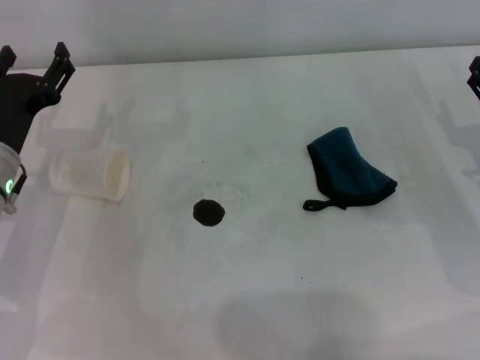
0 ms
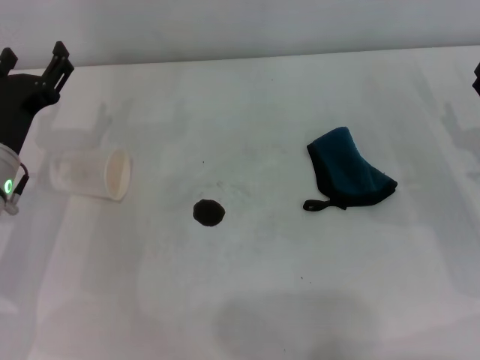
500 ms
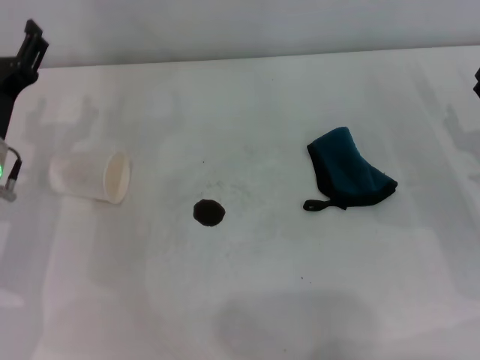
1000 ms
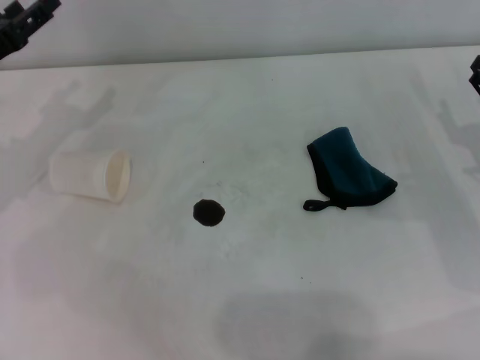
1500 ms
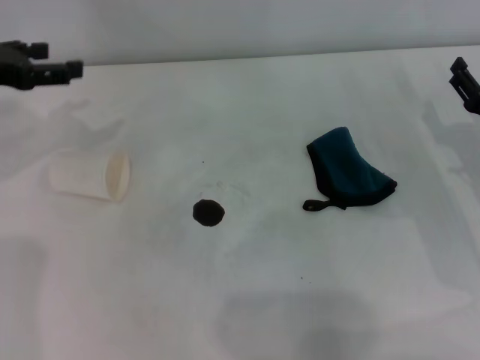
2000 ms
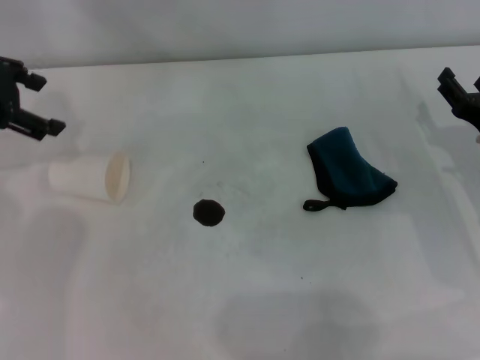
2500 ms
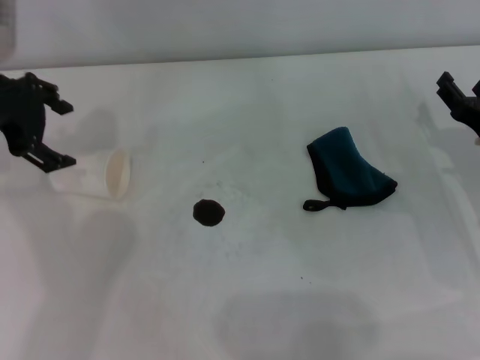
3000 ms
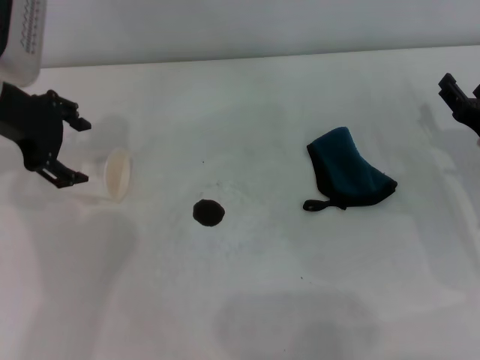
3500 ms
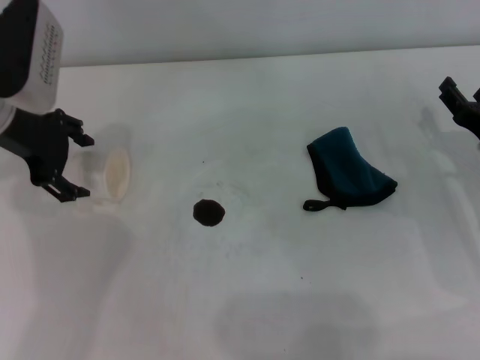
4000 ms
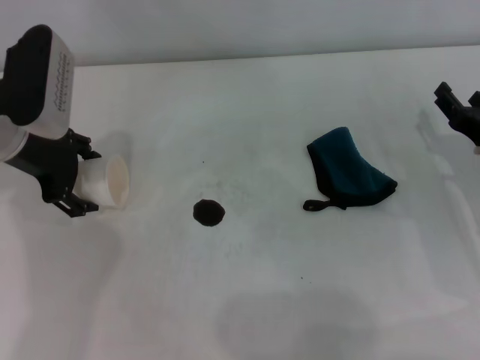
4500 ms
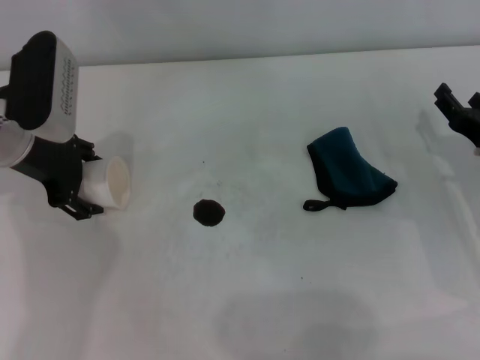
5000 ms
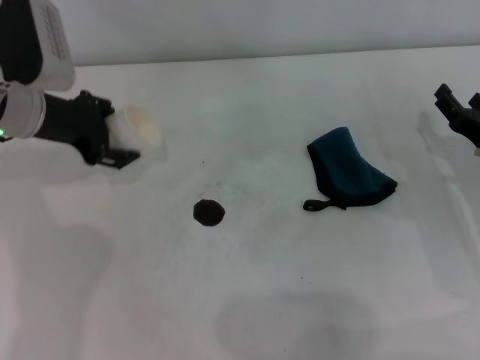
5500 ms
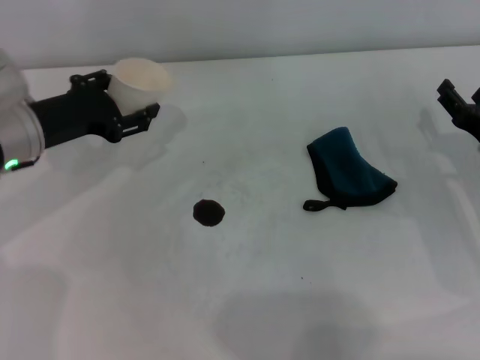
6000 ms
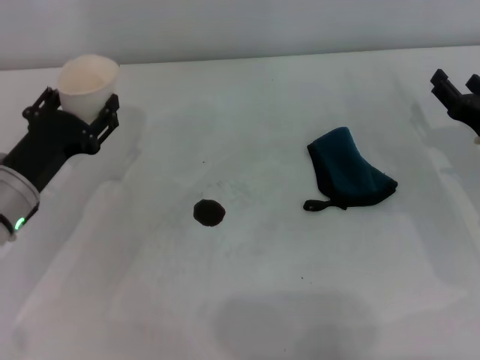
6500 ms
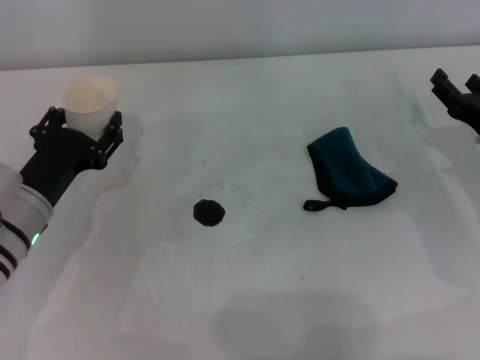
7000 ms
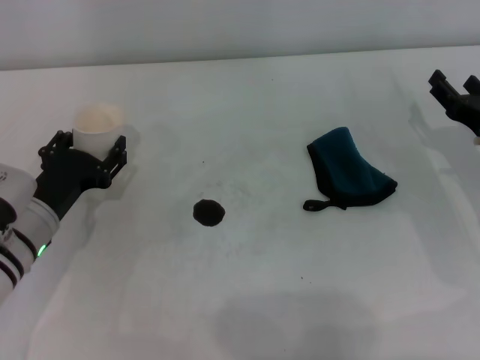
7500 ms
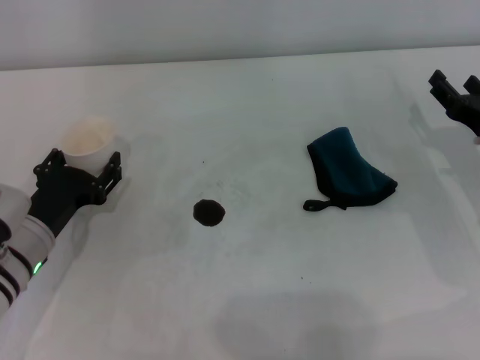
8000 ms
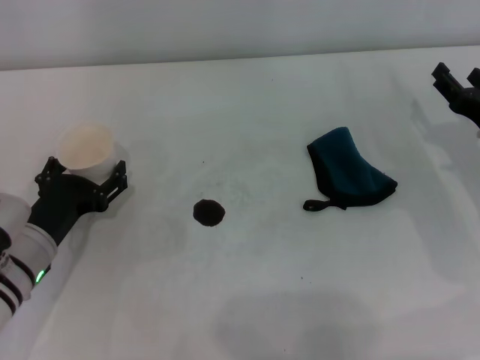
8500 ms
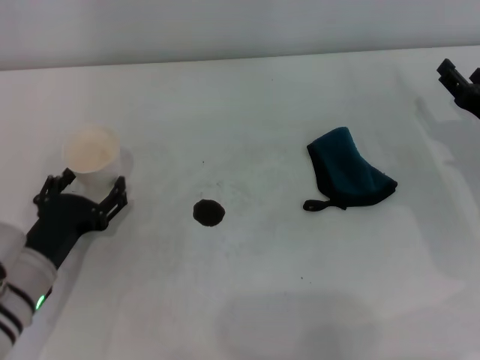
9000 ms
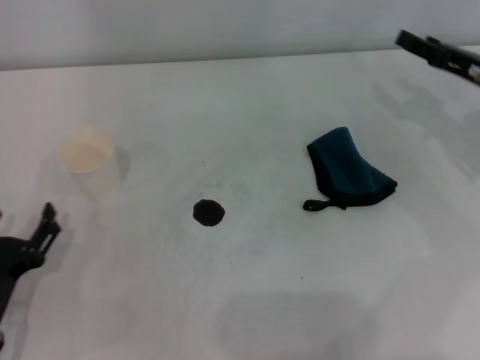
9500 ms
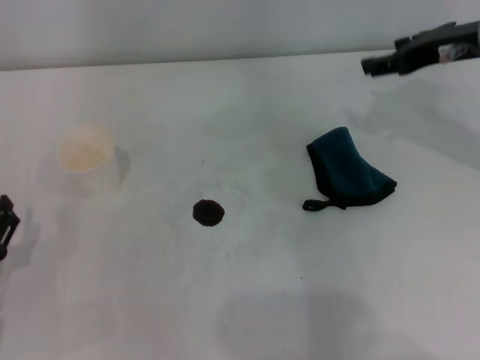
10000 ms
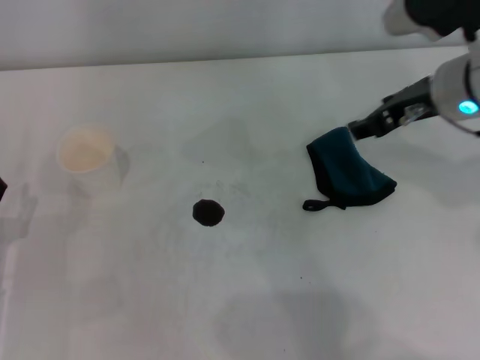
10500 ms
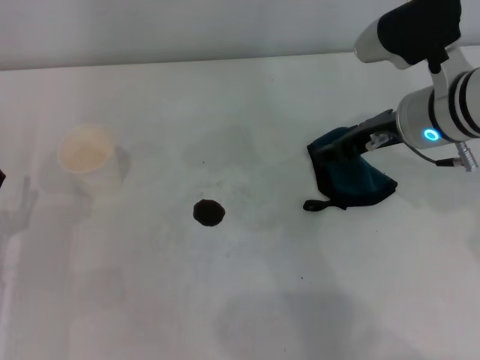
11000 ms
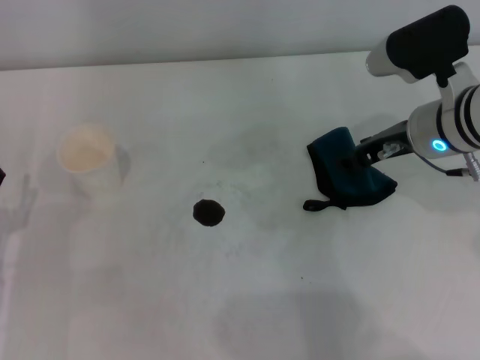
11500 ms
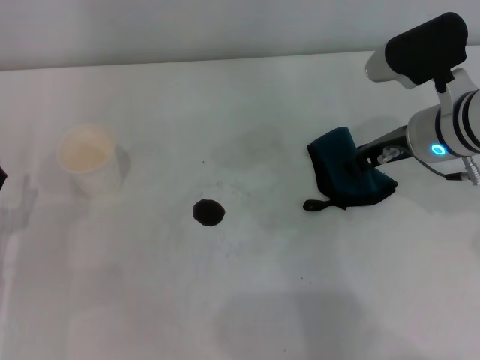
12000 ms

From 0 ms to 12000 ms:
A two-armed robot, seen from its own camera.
Step, from 0 ms to 4000 ms: Grasp the paper cup with the left gripper.
Step, from 4500 ms to 8500 ms: Stand the paper cup upright with the left gripper.
From 0 ms to 2000 ms: The left gripper is displaced upward, to the left and forward by approximately 15 cm.
From 2000 ms to 4000 ms: The left gripper shifts about 10 cm to the right.
From 4000 ms to 6000 ms: The left gripper goes approximately 5 cm downward, and closes up.
From 6000 ms to 8000 ms: The left gripper travels backward and downward by approximately 15 cm.
From 8000 ms to 10000 ms: The right gripper shifts about 20 cm upward and forward; the left gripper goes approximately 10 cm backward and to the left, and opens its fingers.
From 10000 ms to 12000 ms: The right gripper shifts some 10 cm downward and to the left.

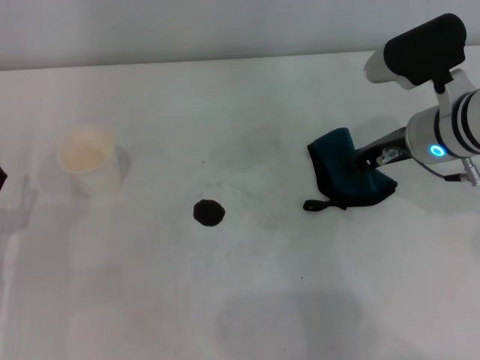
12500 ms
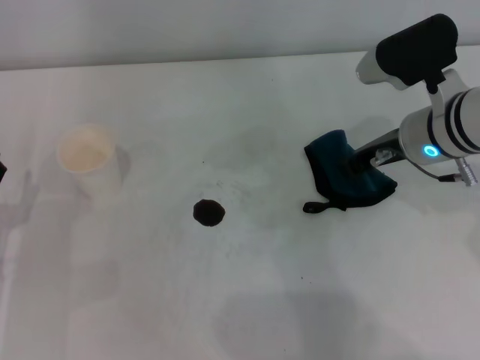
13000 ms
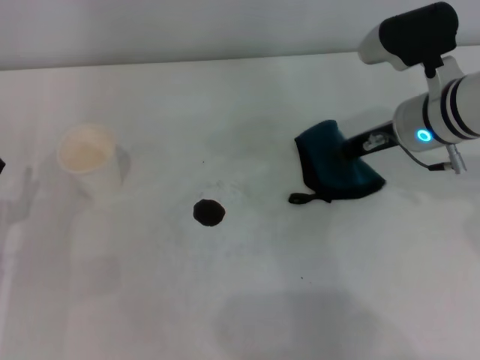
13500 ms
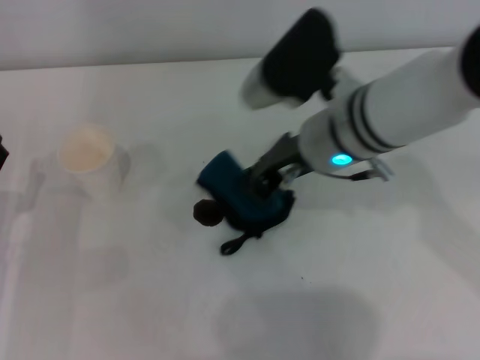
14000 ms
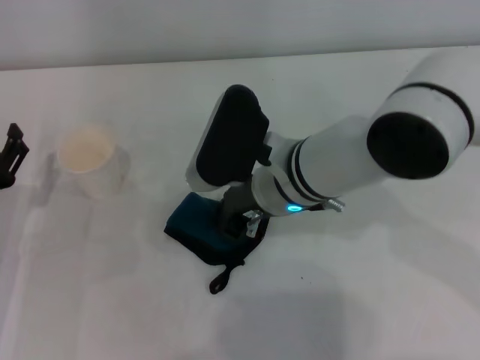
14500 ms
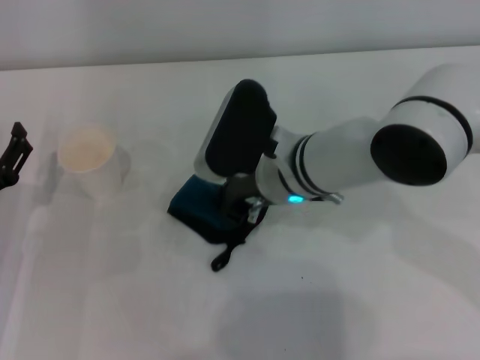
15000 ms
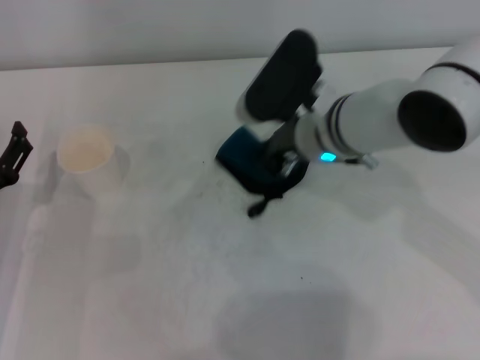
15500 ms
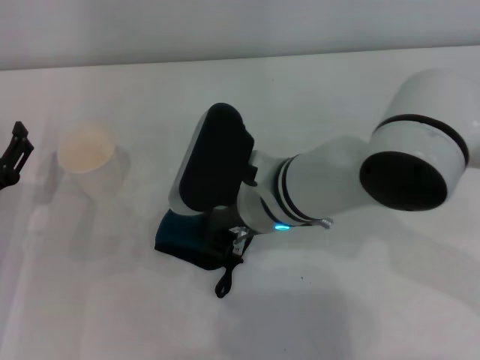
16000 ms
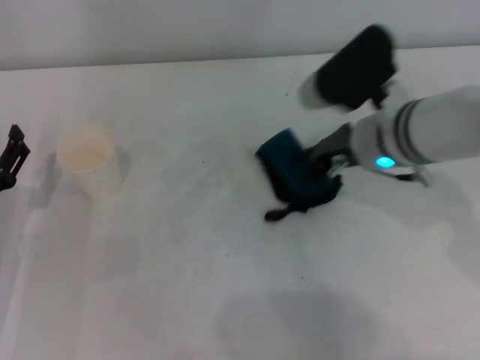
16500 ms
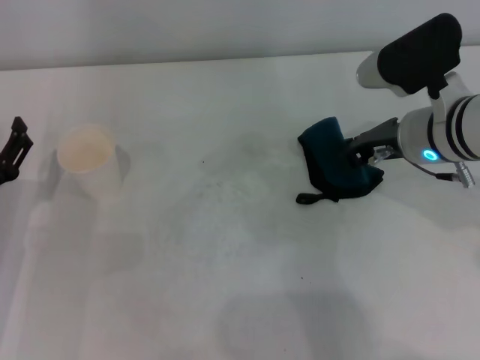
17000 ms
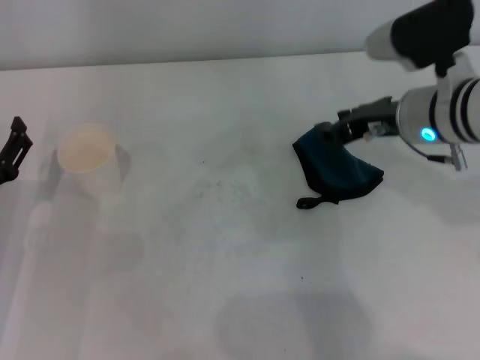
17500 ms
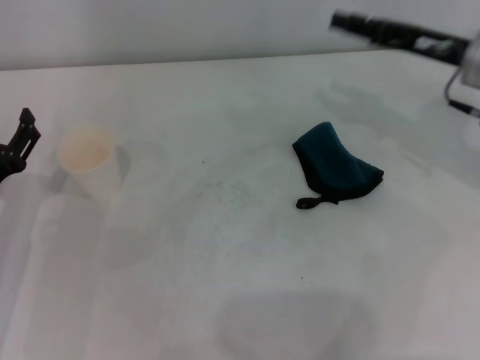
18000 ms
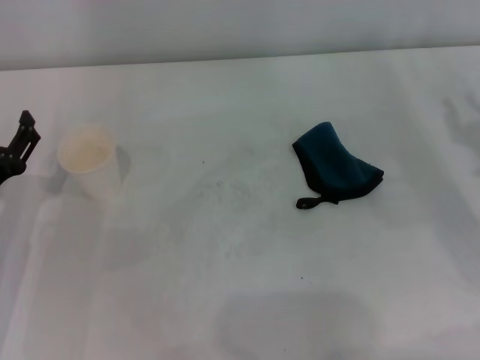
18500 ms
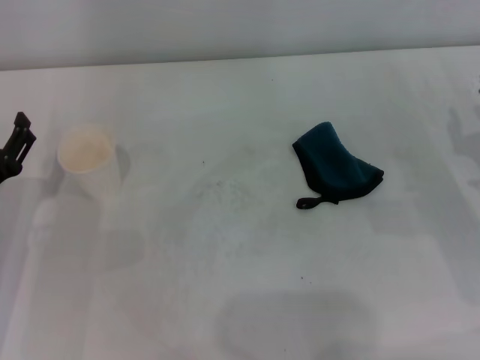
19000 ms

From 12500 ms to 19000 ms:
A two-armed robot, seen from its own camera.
Step, from 13500 ms to 16000 ms: Wipe the stains off the table with the right gripper.
Step, from 16500 ms to 17000 ms: Place the rag on the table with the right gripper.
From 12500 ms to 14500 ms: The right gripper heads to the left, covering roughly 15 cm.
From 14500 ms to 17000 ms: The right gripper swings left and right, roughly 15 cm each way, with 2 reversals.
From 17000 ms to 19000 ms: The right gripper moves to the right, downward and backward, roughly 15 cm, and opens up.

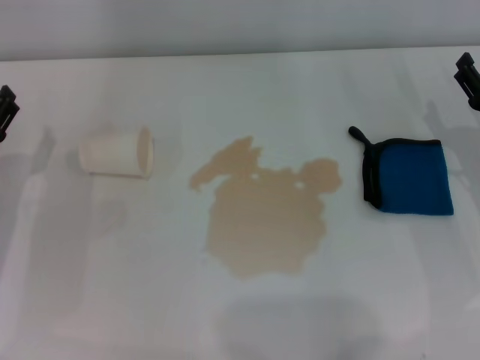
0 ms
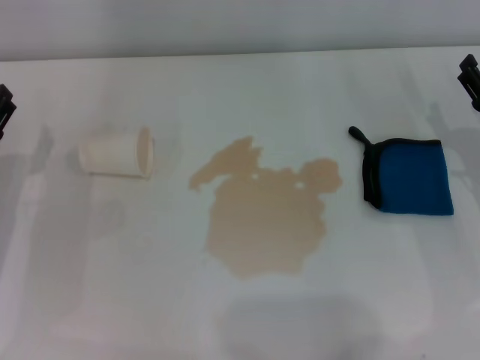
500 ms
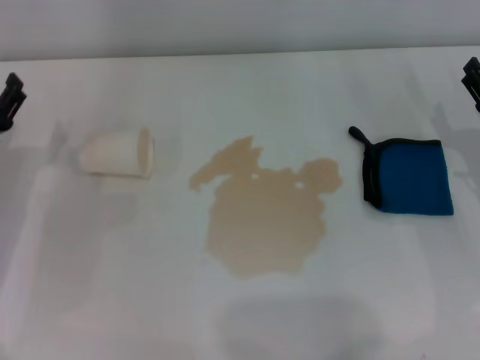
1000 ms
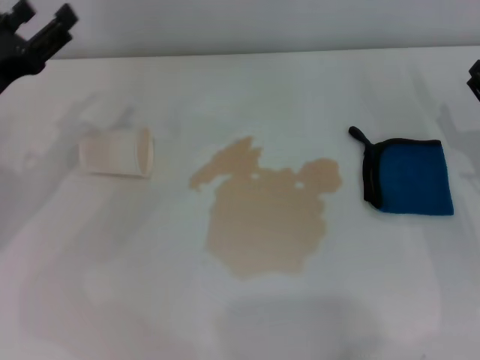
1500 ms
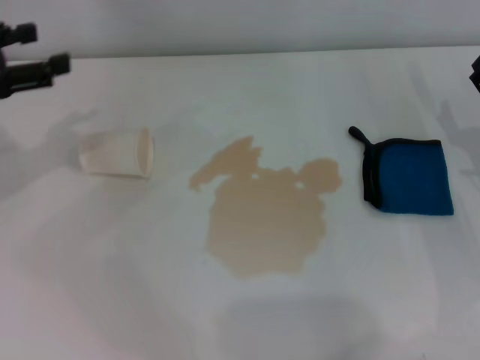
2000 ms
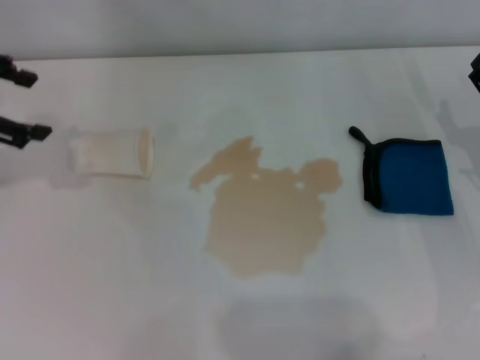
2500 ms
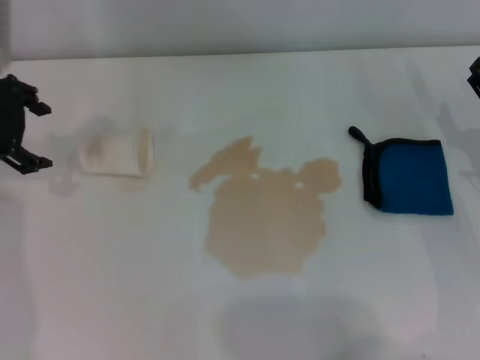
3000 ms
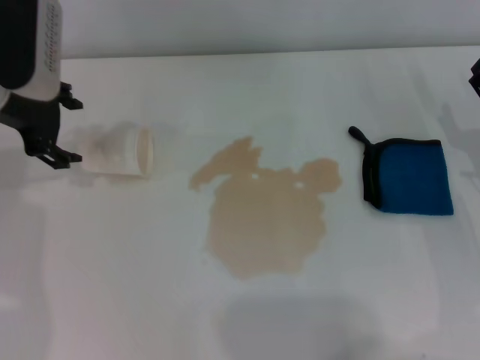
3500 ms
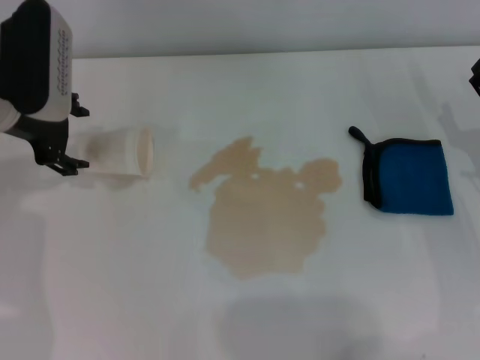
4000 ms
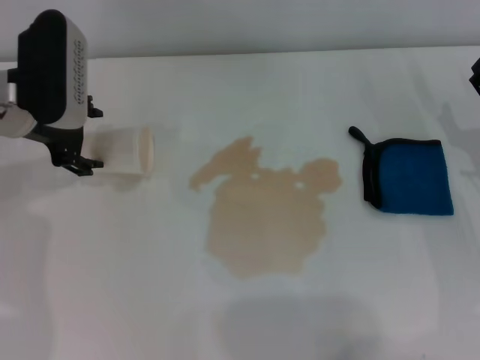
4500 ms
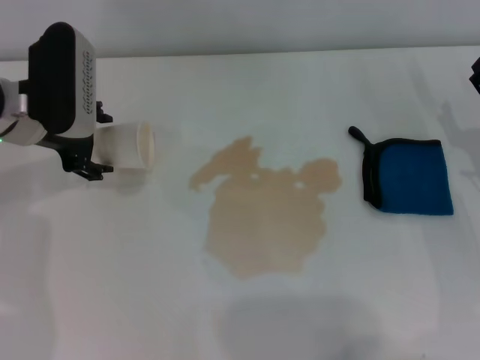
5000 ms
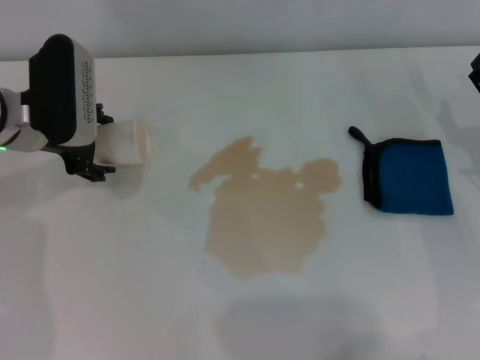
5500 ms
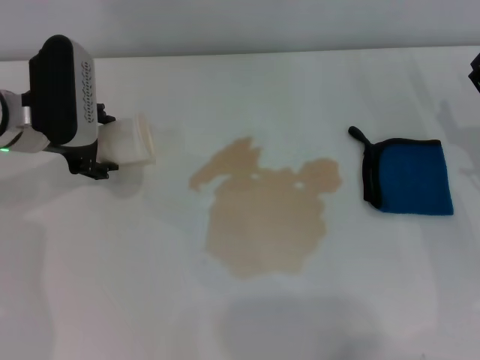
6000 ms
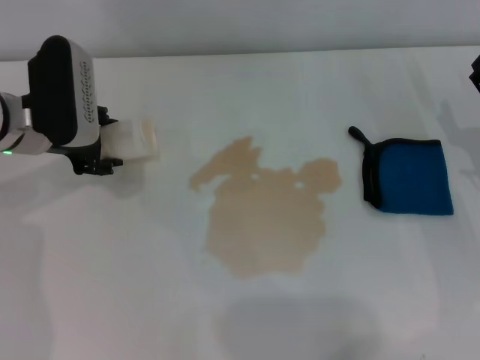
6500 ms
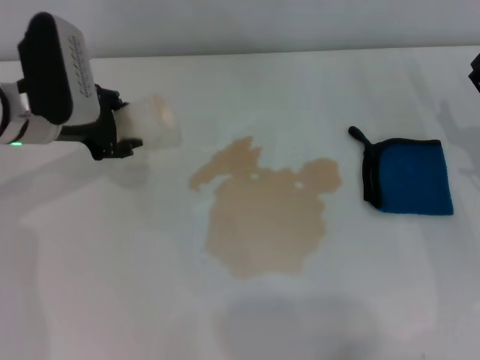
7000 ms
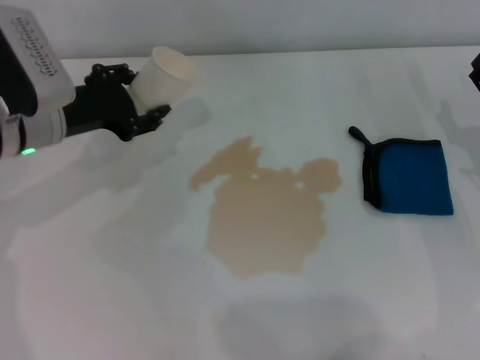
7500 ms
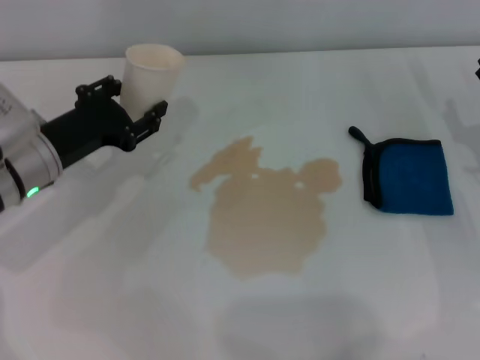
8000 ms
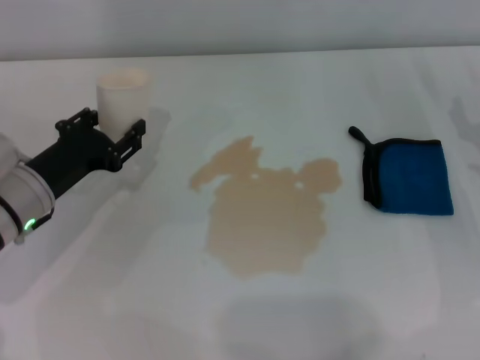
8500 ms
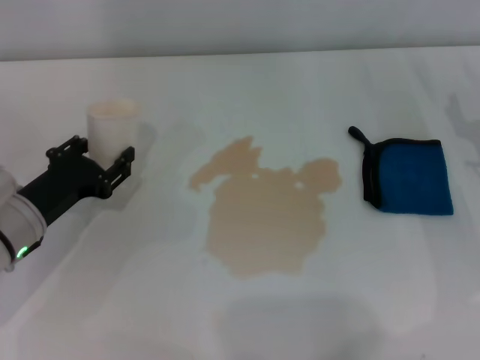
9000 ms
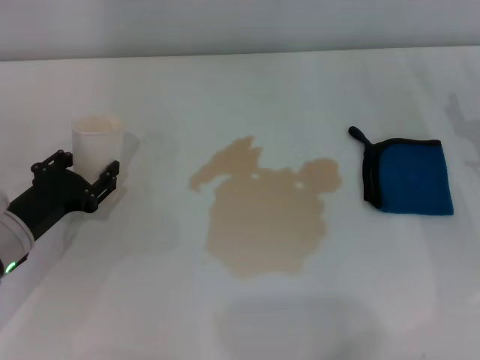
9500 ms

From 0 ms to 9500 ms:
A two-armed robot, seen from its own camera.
Step, from 0 ms to 6500 ms: Grasp the paper cup with the left gripper.
From 0 ms to 2000 ms: The left gripper heads upward, covering roughly 15 cm.
From 2000 ms to 4000 ms: The left gripper goes approximately 10 cm to the right.
From 4000 ms to 5500 ms: The grippers stay close to where they were, moving slightly.
From 5500 ms to 7500 ms: The left gripper closes up.
From 7500 ms to 9500 ms: The left gripper travels downward and backward by approximately 15 cm.
